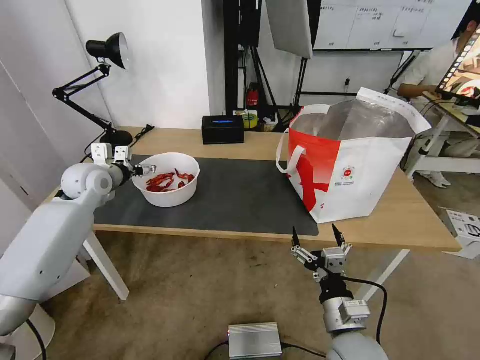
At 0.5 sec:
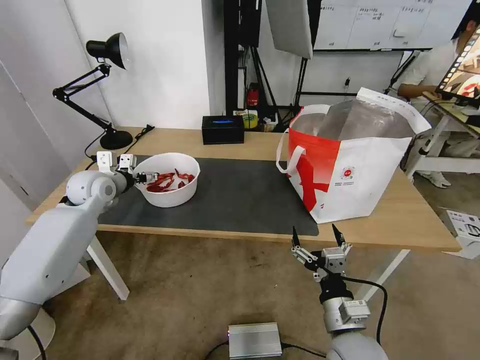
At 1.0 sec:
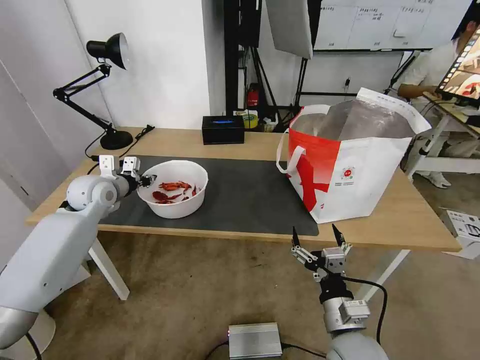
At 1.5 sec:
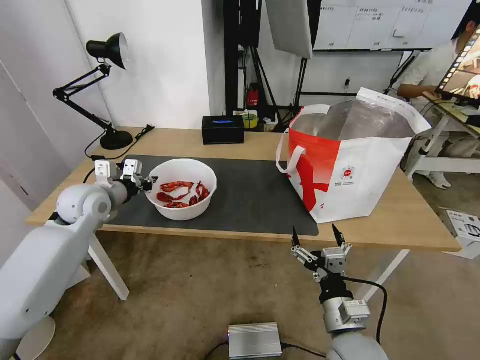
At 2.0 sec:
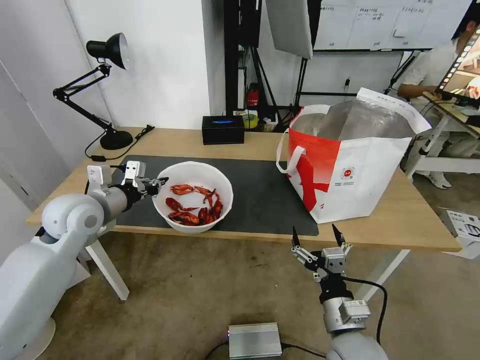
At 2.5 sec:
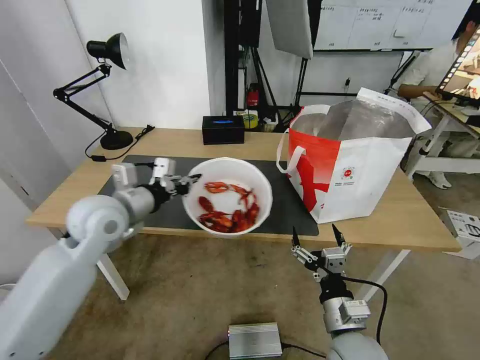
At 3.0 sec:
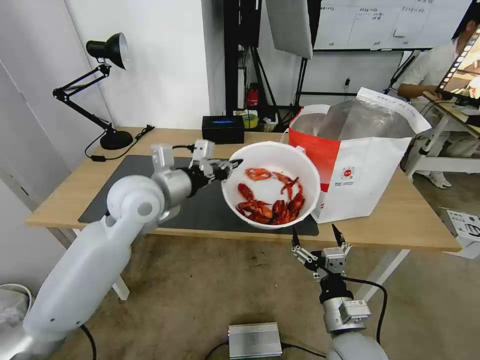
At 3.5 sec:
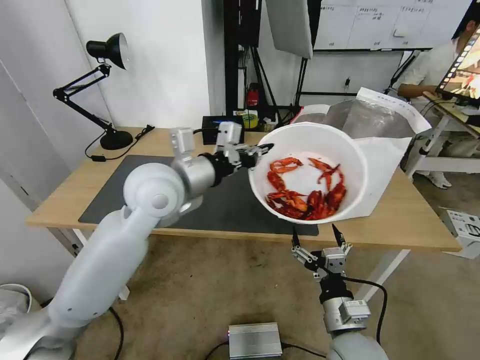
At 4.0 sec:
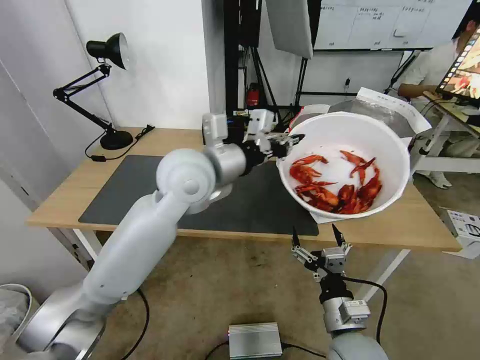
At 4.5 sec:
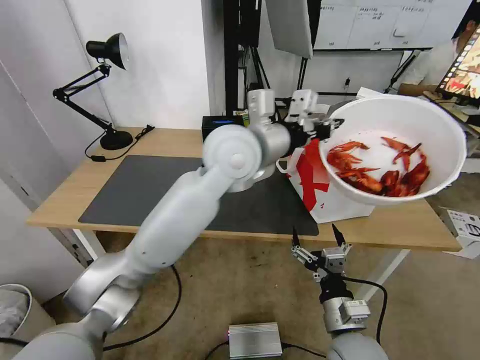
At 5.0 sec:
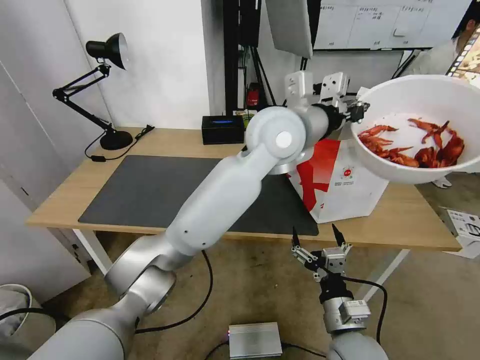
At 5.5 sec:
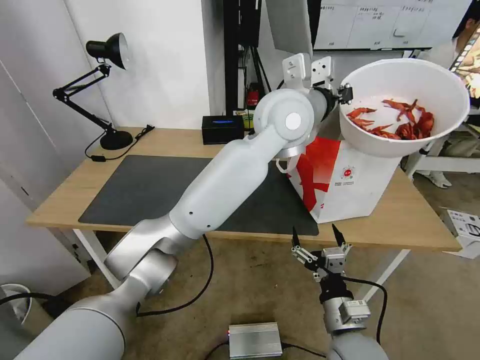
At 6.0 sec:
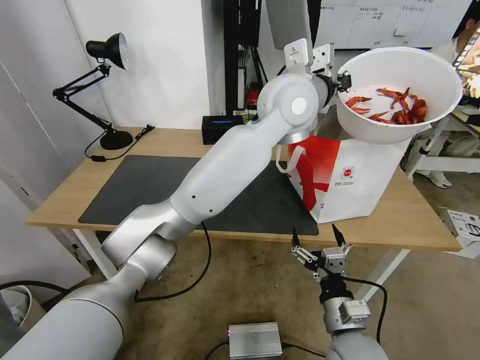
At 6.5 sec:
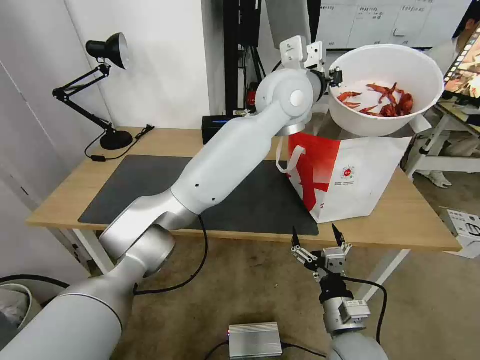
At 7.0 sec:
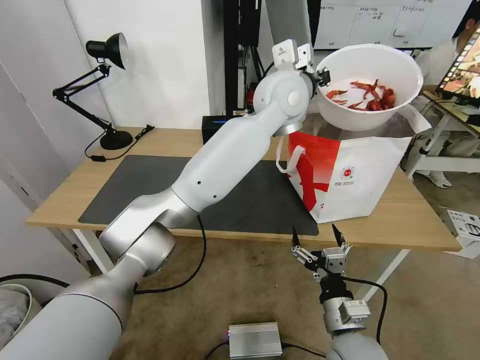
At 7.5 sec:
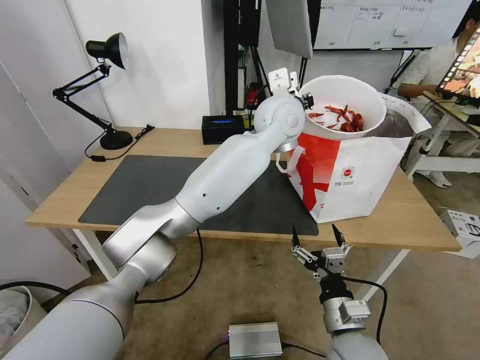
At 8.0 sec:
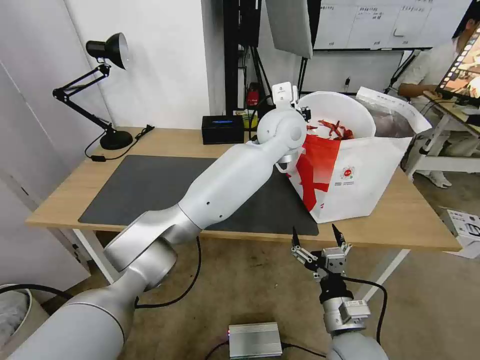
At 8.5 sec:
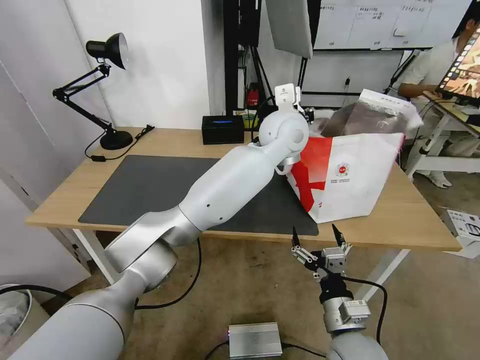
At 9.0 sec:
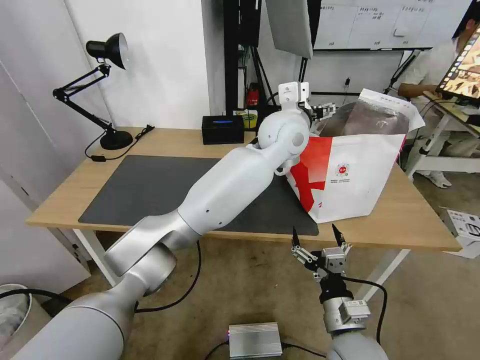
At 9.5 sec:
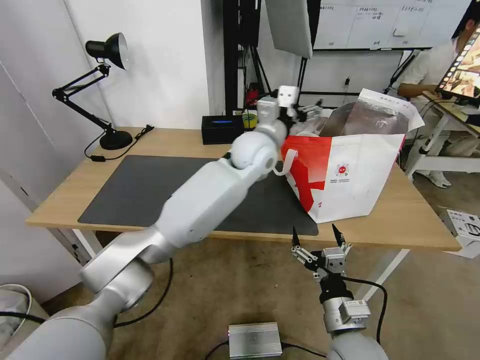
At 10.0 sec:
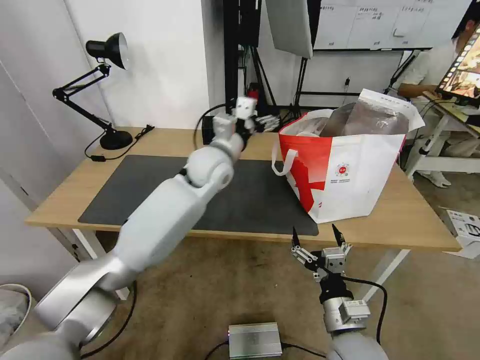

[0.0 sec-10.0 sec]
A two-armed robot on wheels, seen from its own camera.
Task of the whole recording: Pick up the trash from the table and place it into the takeout bag.
0.0 sec to 2.0 sec: The left gripper shifts about 10 cm backward, and closes its fingers.
2.0 sec to 4.0 sec: The left gripper shifts approximately 25 cm to the right and upward.
4.0 sec to 6.0 sec: The left gripper goes about 20 cm to the right, upward and forward.
6.0 sec to 8.0 sec: The left gripper goes some 10 cm downward.
8.0 sec to 10.0 sec: The left gripper heads to the left and downward, covering about 20 cm, and opens.

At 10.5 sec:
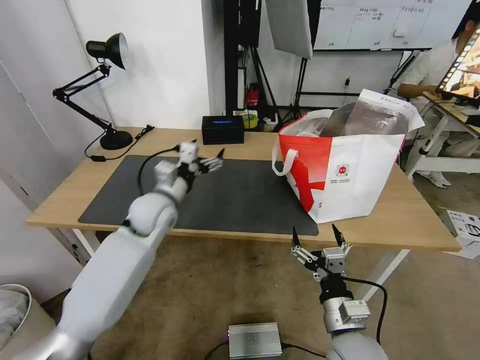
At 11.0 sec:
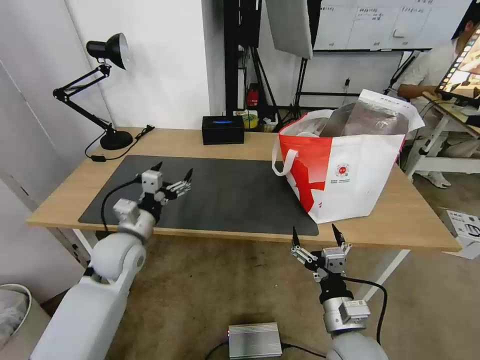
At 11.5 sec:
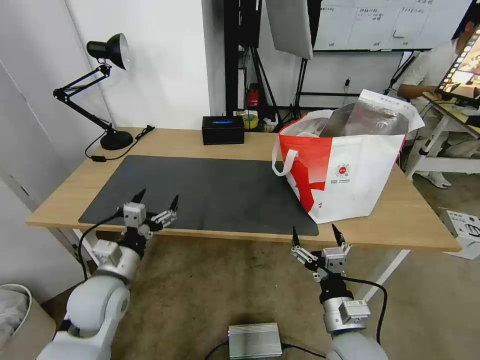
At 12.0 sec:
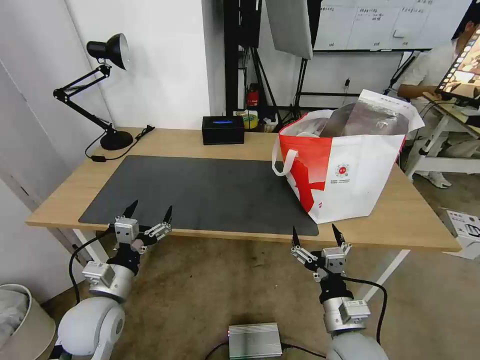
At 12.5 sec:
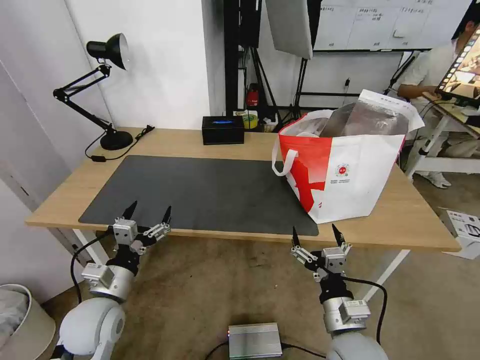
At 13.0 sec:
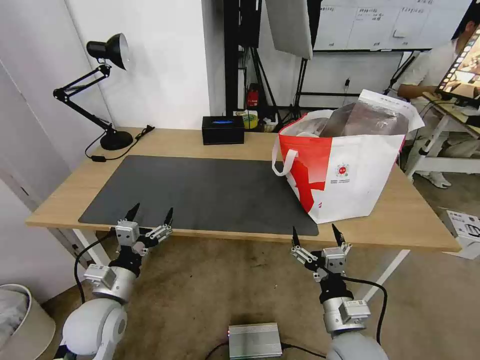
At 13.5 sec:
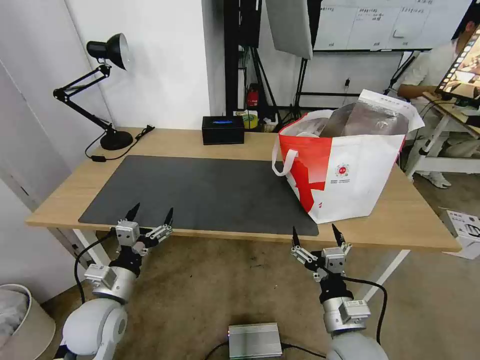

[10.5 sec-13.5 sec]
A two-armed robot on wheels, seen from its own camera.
Task of the whole recording: Pick up the trash from the table and place it into the takeout bag.
10.5 sec to 12.0 sec: The left gripper goes approximately 20 cm backward.
12.0 sec to 13.5 sec: The grippers stay close to where they were, moving slightly.

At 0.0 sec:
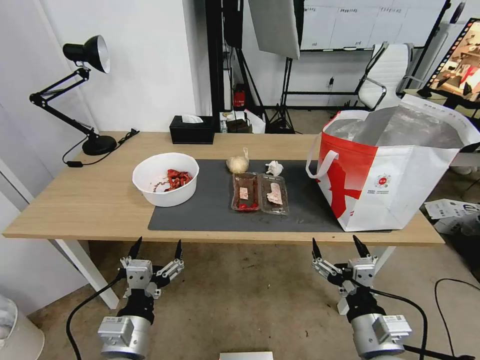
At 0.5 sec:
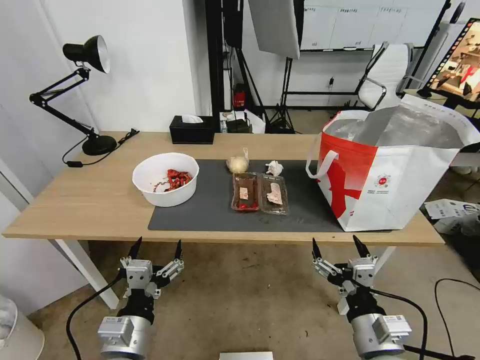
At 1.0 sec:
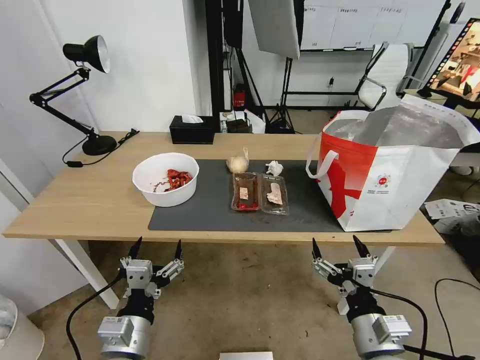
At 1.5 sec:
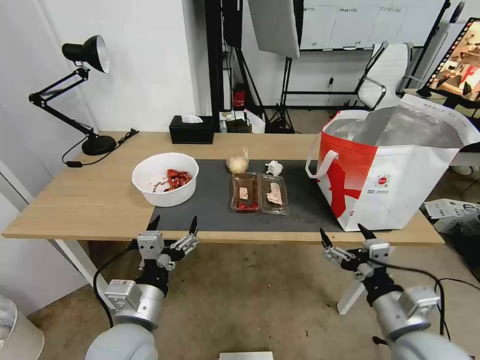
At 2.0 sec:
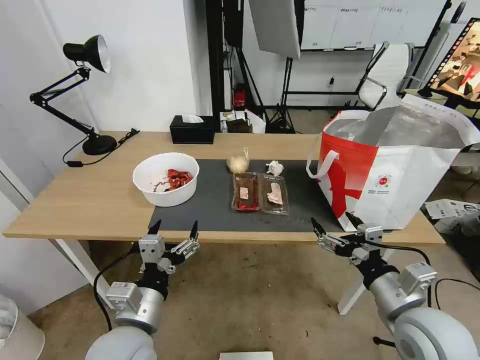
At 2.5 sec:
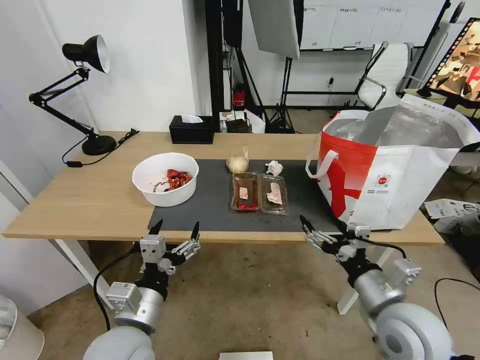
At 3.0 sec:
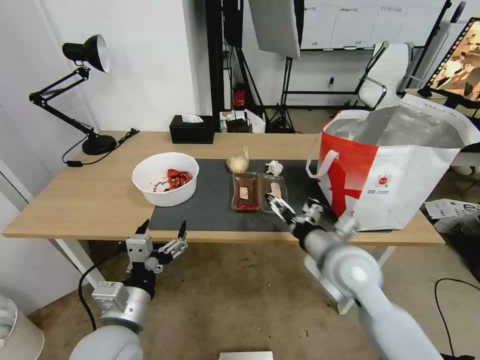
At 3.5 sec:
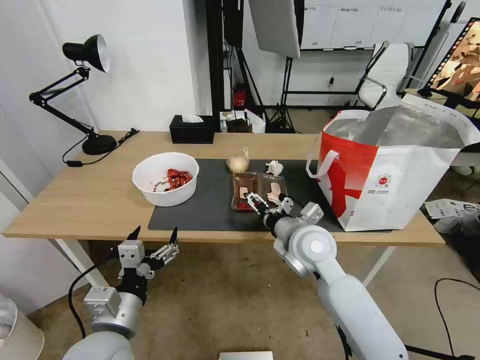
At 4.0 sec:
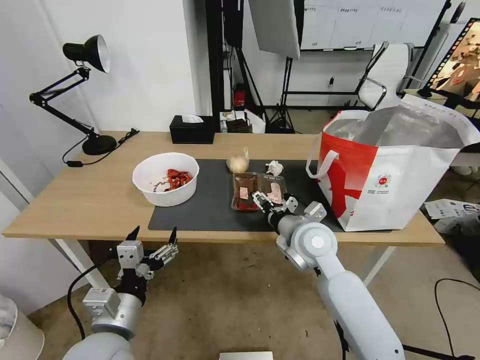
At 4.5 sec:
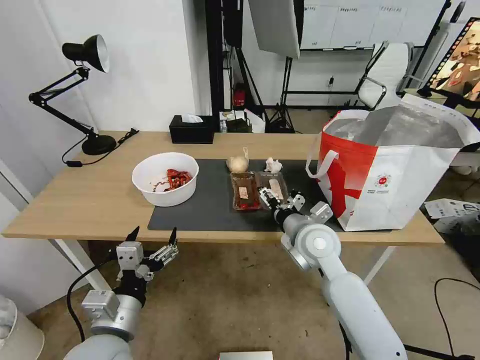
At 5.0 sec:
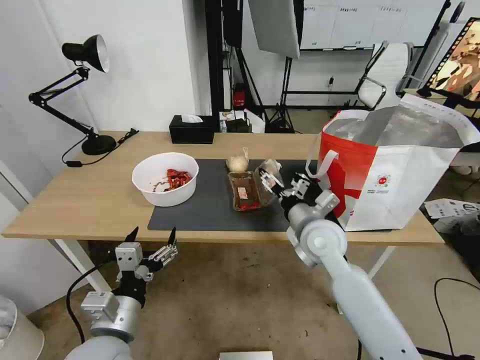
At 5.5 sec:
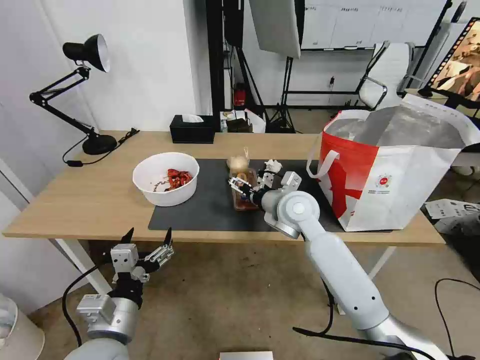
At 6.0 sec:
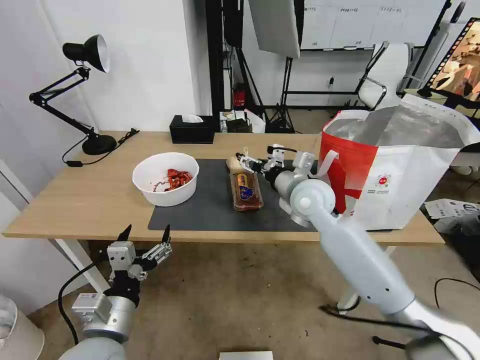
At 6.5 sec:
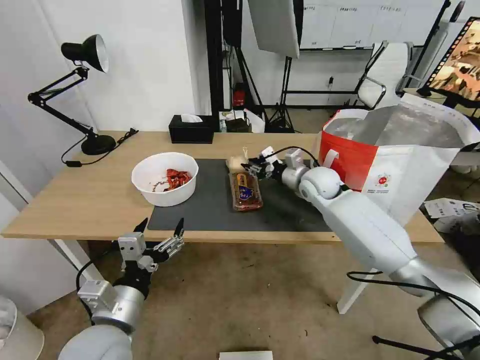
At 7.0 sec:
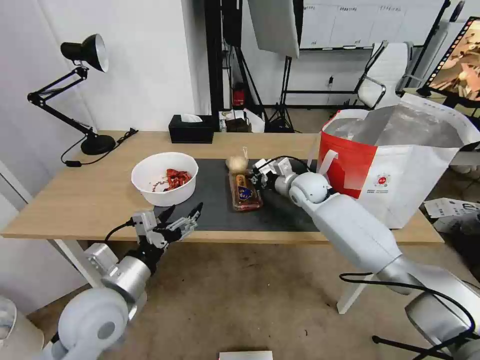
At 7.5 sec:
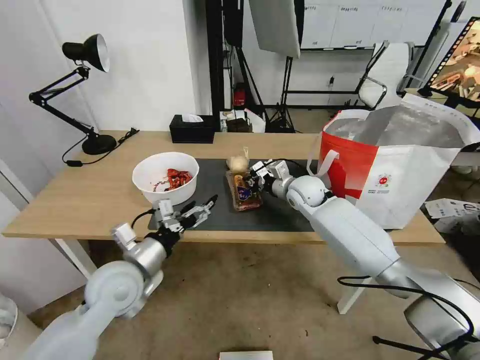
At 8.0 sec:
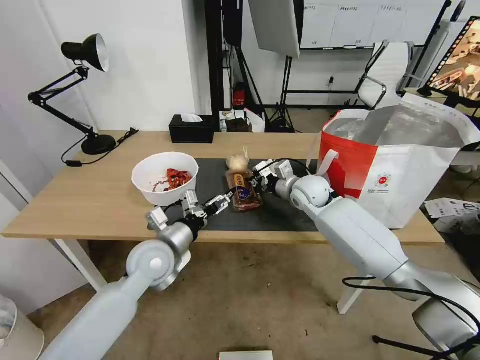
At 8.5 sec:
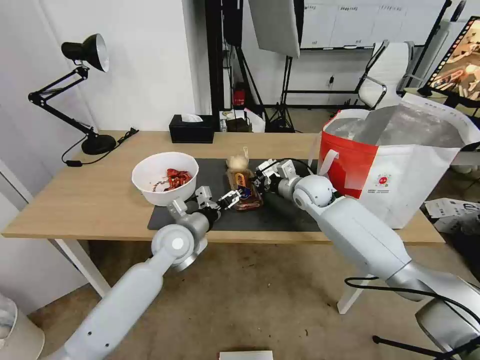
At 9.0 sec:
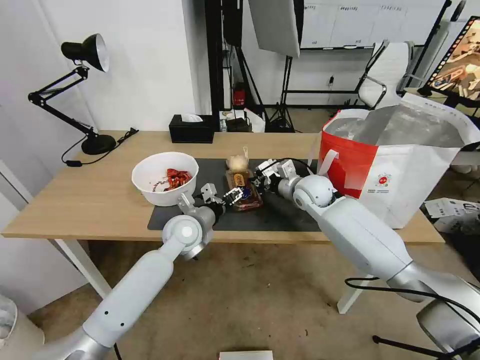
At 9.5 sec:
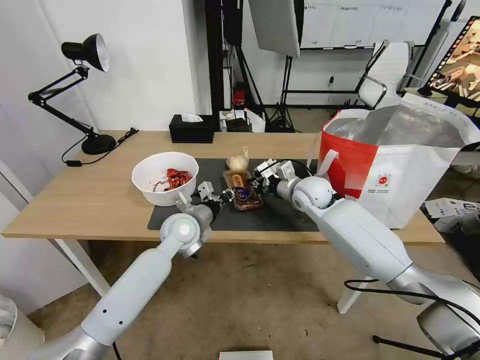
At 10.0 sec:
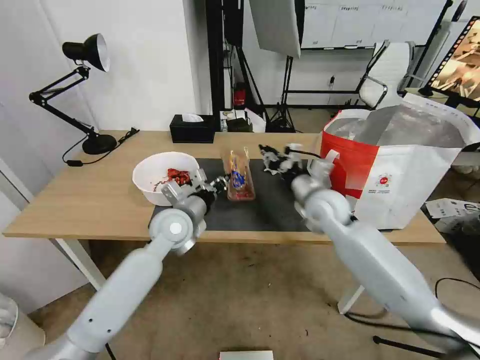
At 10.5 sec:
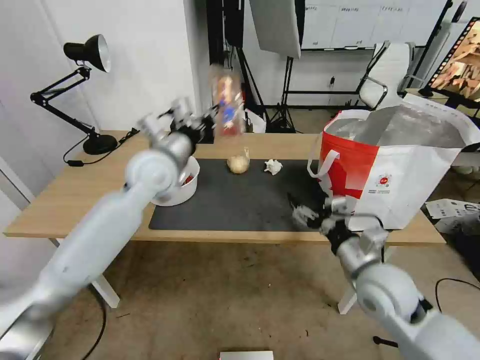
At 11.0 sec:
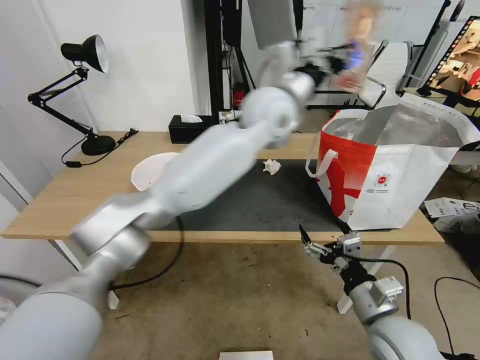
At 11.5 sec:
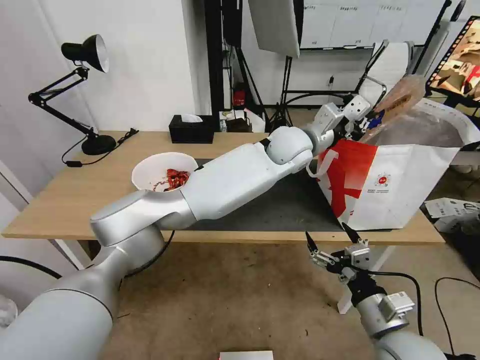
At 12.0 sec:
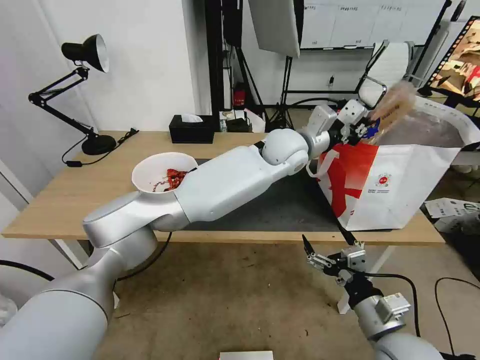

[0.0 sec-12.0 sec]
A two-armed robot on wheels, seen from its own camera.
Task of the whole recording: Pick up the trash from the table and place it into the takeout bag.
2.0 sec to 4.0 sec: The right gripper goes roughly 25 cm forward and to the left.
4.0 sec to 6.0 sec: The right gripper is displaced forward and upward by roughly 10 cm.
6.0 sec to 8.0 sec: The left gripper heads forward, covering approximately 20 cm. The right gripper travels forward and downward by roughly 10 cm, and closes.
8.0 sec to 10.0 sec: The left gripper is displaced forward by roughly 5 cm, and closes up. The right gripper heads backward, covering approximately 10 cm.
10.0 sec to 12.0 sec: The left gripper travels to the right, upward and forward by approximately 30 cm; the right gripper is displaced backward by about 25 cm, and opens up.
